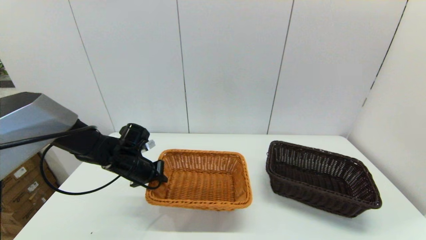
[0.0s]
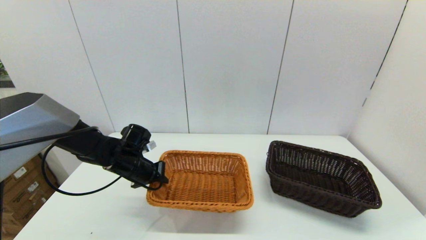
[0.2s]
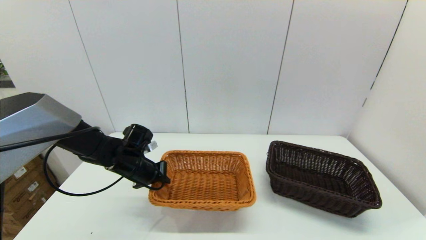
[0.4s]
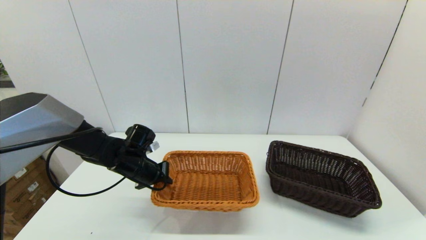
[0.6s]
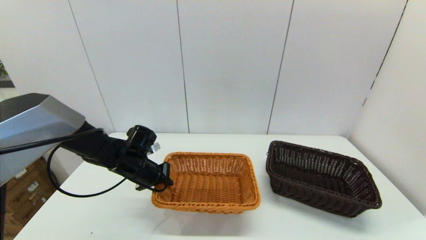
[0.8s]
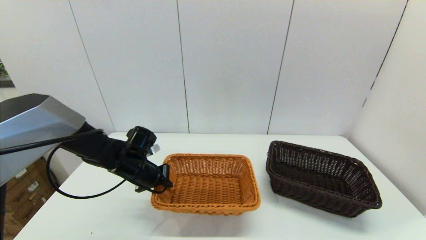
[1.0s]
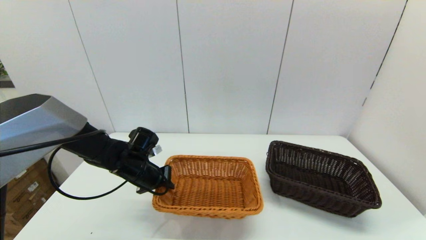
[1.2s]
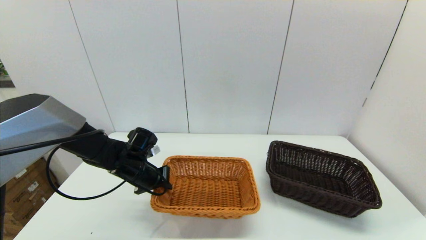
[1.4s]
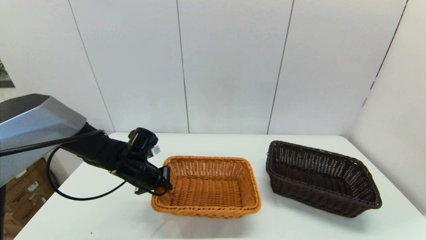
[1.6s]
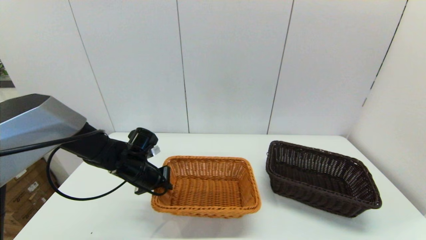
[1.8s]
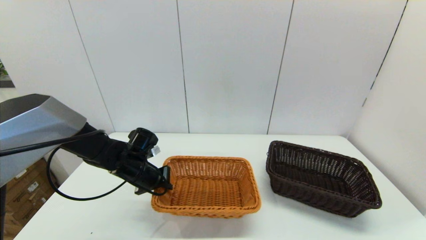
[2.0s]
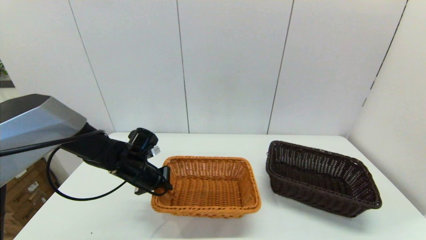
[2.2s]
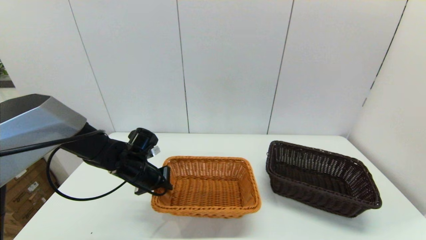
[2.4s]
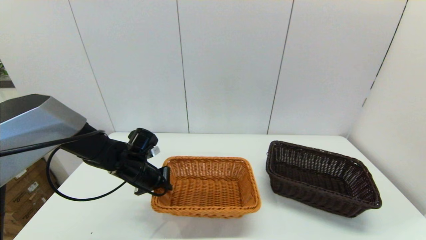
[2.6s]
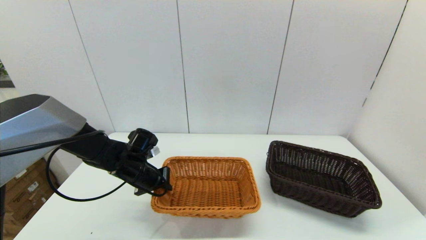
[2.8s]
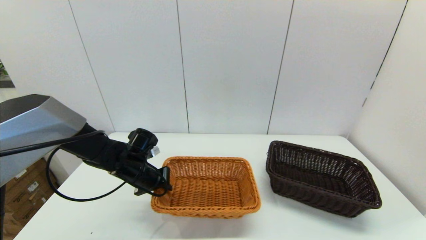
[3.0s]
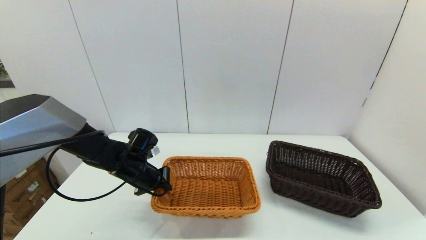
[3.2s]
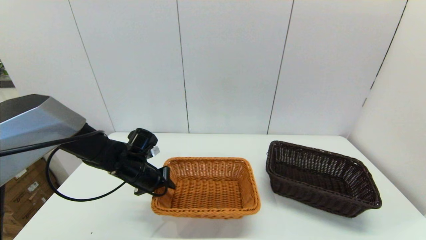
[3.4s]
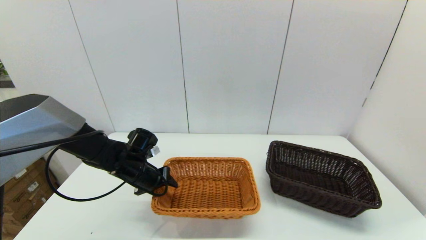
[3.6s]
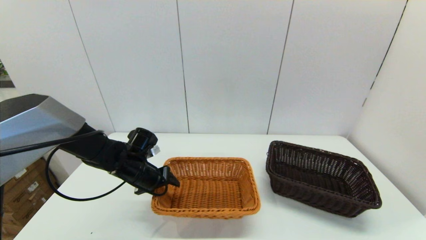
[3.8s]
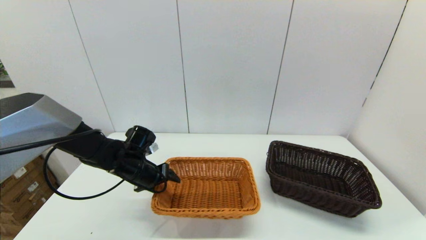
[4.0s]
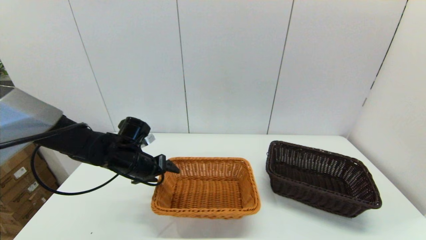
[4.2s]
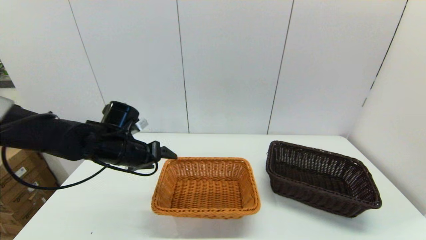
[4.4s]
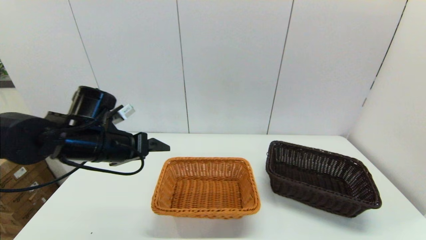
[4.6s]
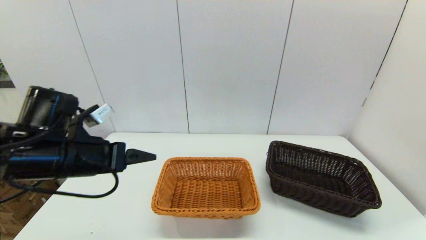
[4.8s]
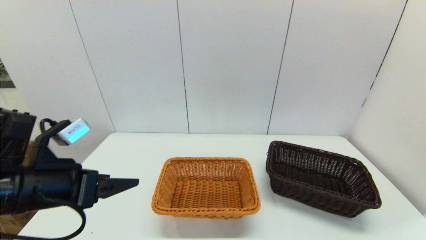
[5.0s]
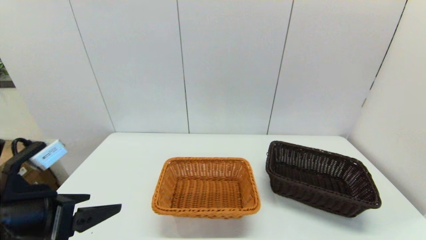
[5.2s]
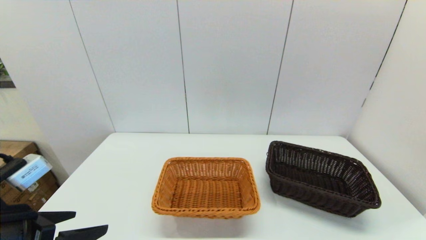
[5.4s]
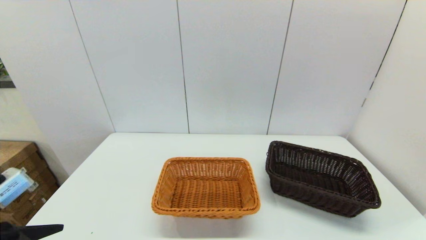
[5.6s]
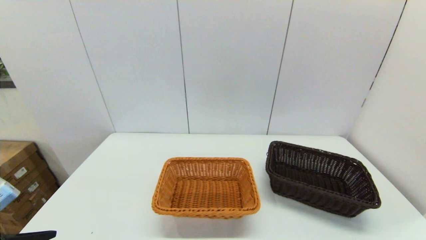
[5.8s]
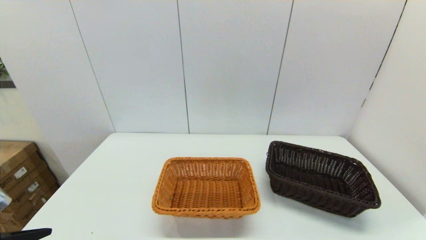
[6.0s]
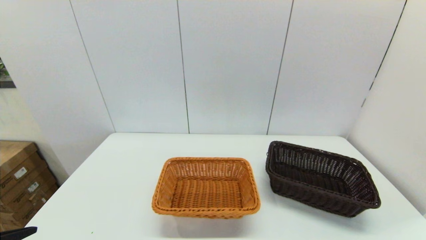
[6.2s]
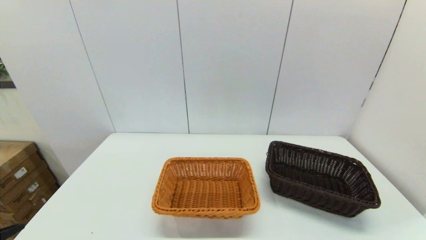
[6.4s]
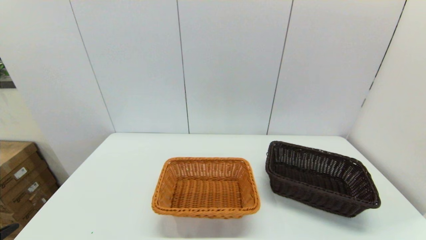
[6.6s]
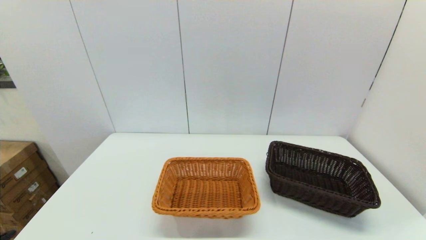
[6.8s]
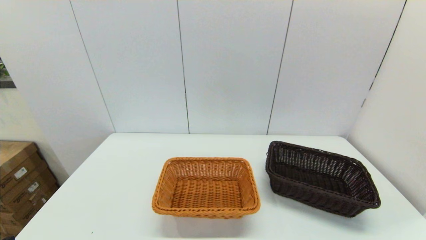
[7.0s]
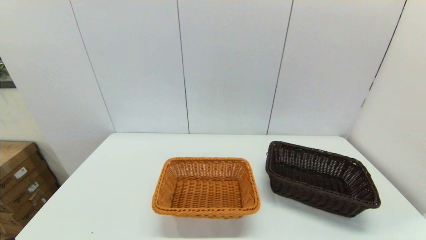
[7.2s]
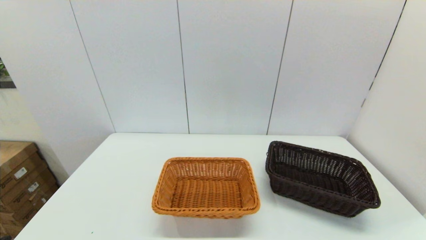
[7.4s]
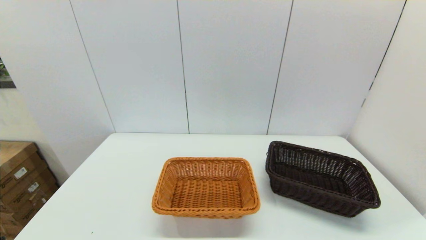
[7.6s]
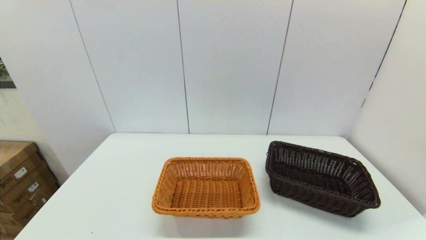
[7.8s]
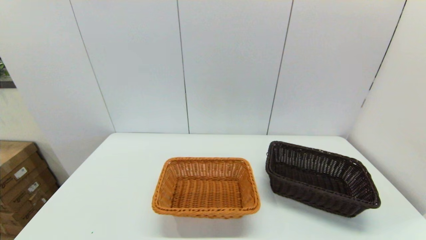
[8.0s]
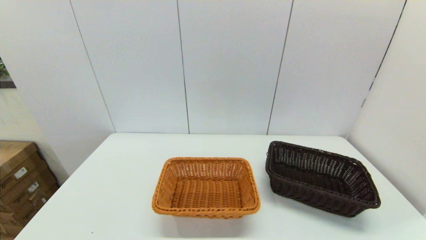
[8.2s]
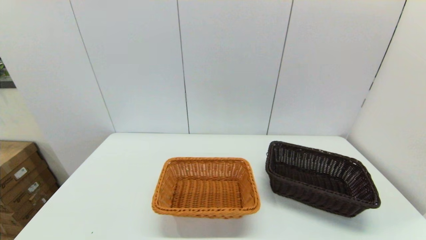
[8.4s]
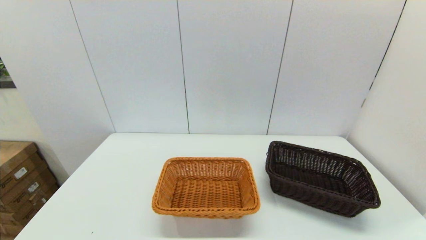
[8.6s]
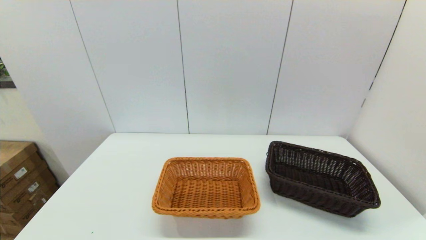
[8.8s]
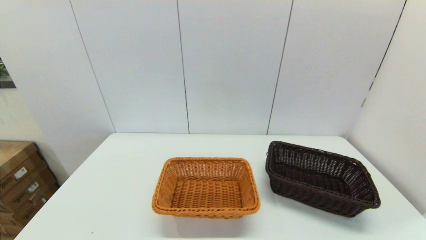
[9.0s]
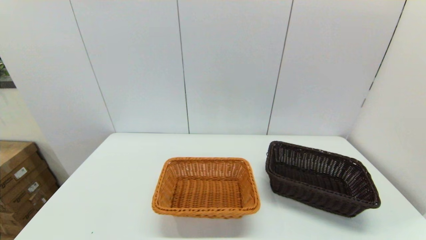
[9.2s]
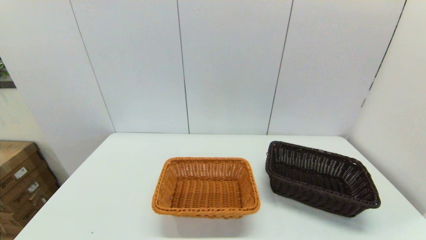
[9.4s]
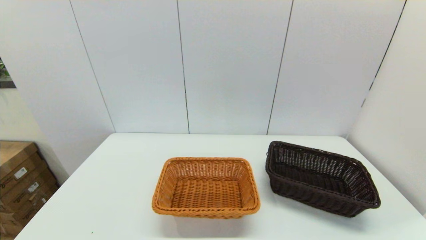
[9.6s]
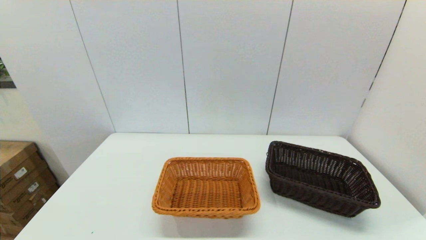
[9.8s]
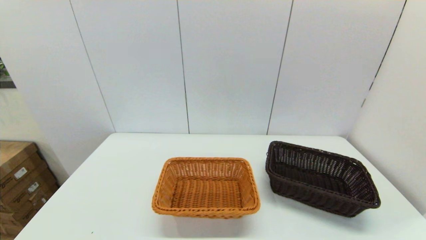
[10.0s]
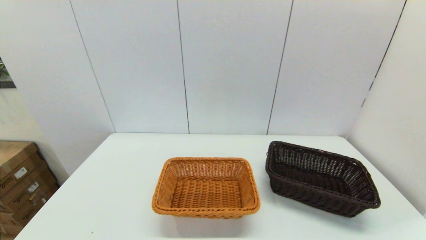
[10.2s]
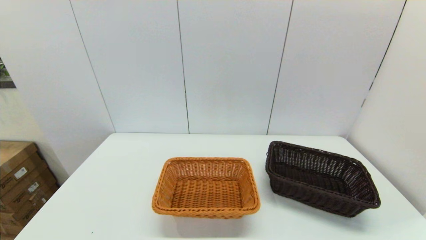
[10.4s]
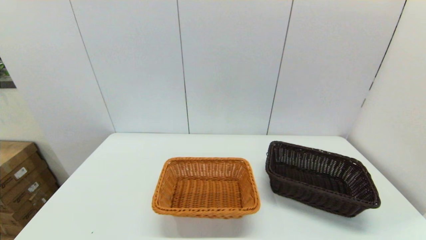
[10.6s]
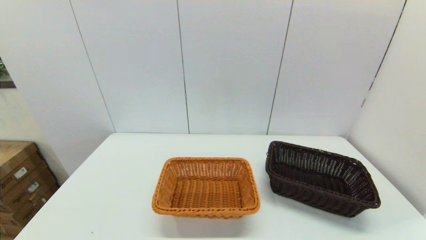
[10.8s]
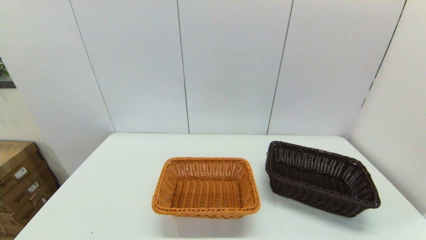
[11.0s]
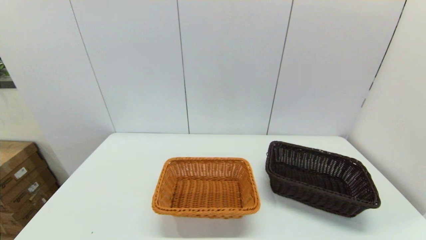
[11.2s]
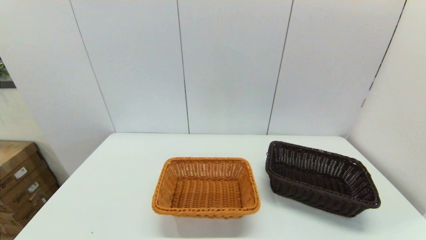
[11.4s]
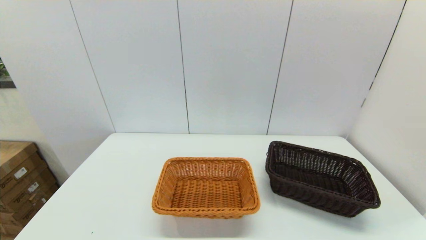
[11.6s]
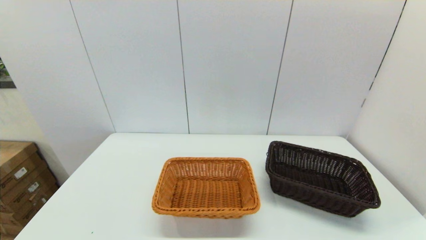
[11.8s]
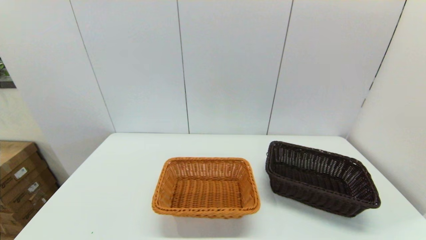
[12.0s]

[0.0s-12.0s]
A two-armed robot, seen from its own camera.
Task of the whole recording: stack a basket on top of another basket.
Step, 0.0s to 4.2s: Place the light basket on the middle of the table with the left gripper.
0.0s to 1.6s: The grippers stay close to where they were, moving slightly.
1.6s to 3.0s: The two grippers keep their place.
3.0s to 4.4s: The left gripper heads upward, covering roughly 10 cm, and opens its fingers.
4.4s to 6.0s: The left gripper is displaced backward by approximately 25 cm.
9.0s to 10.4s: Both grippers stay put.

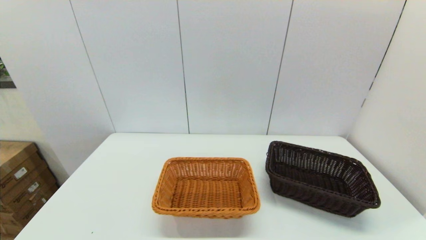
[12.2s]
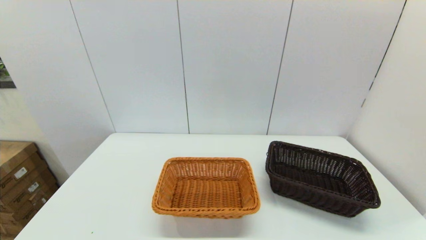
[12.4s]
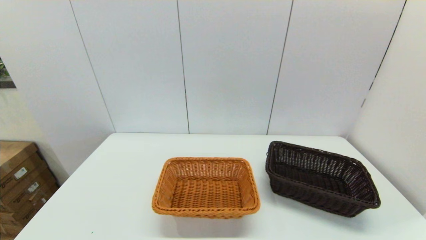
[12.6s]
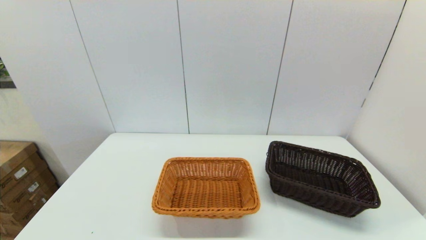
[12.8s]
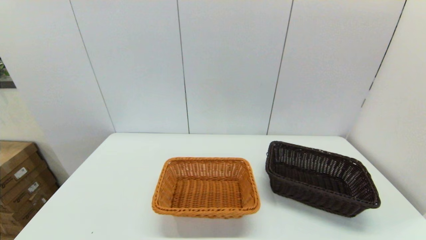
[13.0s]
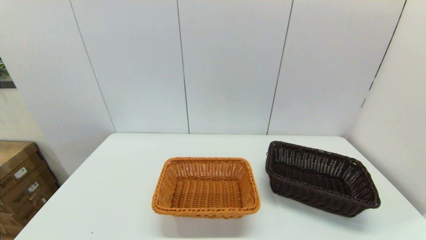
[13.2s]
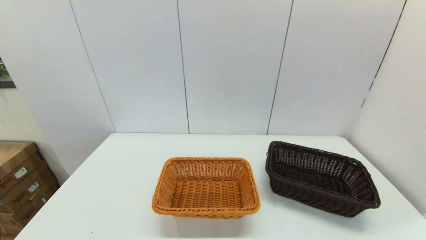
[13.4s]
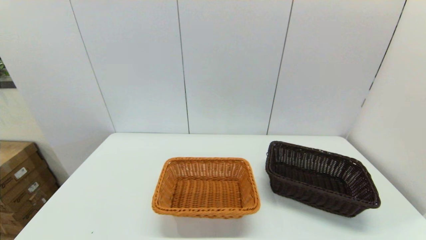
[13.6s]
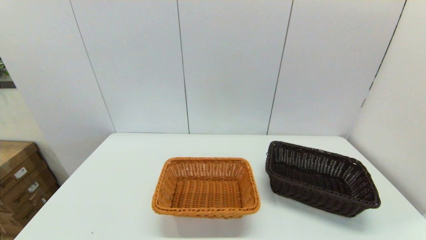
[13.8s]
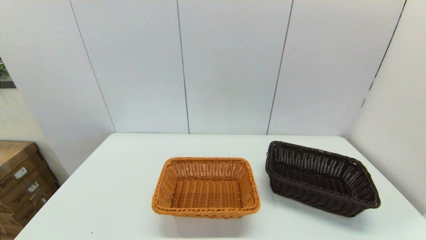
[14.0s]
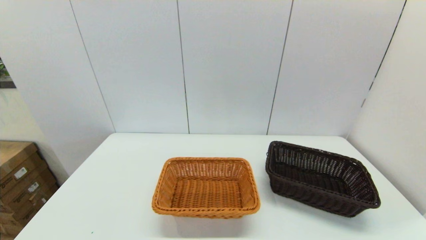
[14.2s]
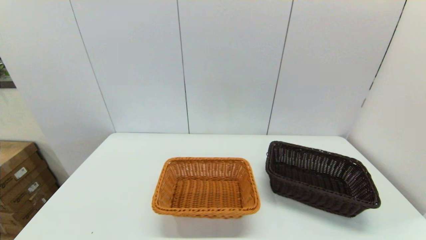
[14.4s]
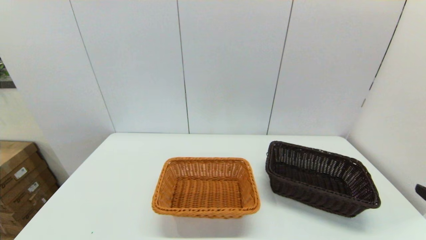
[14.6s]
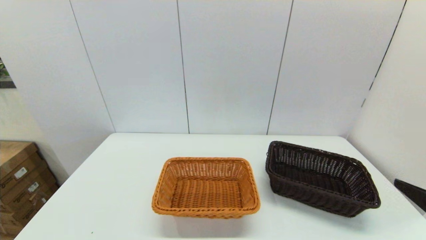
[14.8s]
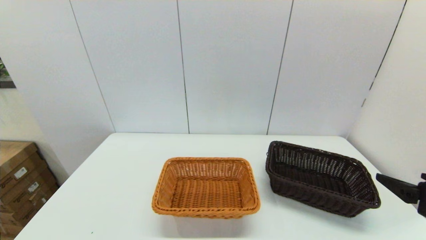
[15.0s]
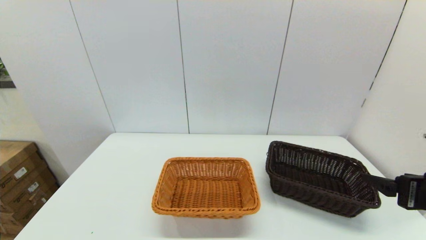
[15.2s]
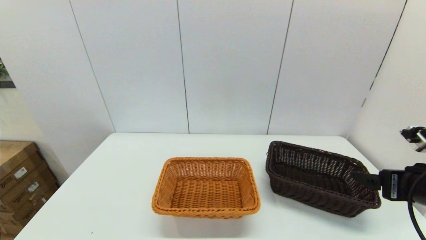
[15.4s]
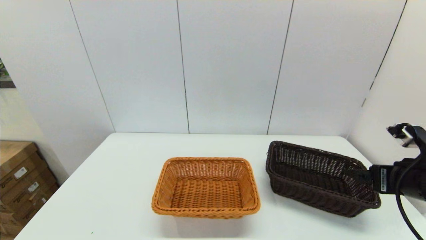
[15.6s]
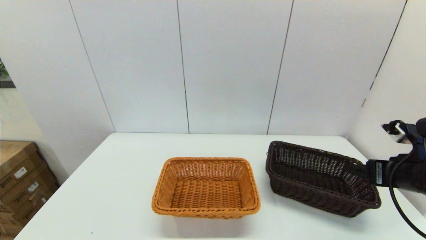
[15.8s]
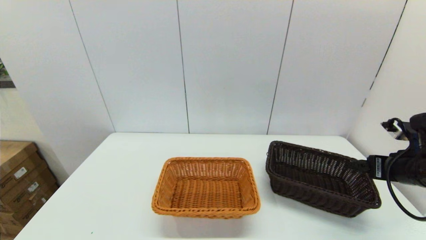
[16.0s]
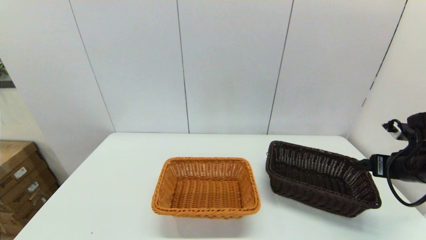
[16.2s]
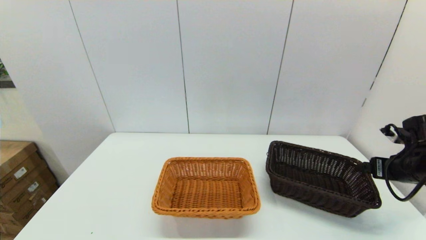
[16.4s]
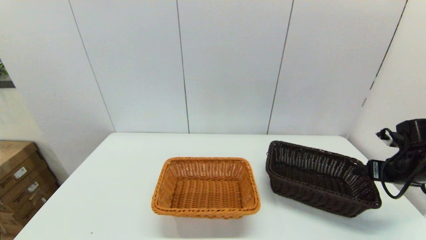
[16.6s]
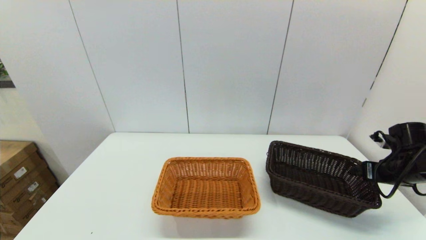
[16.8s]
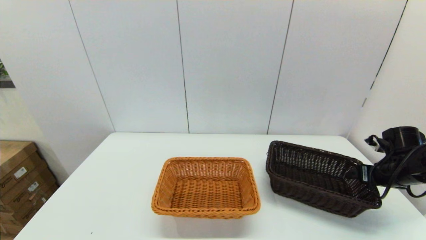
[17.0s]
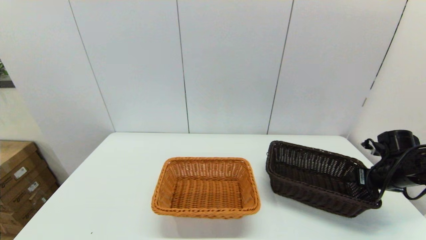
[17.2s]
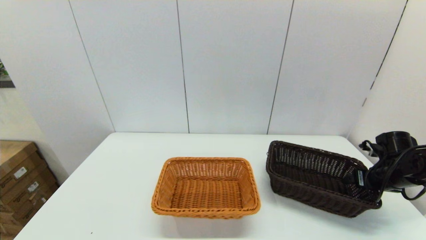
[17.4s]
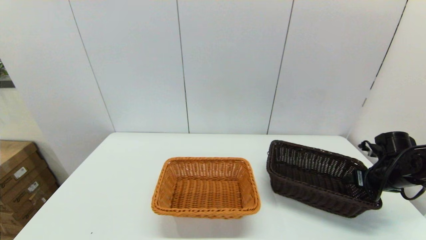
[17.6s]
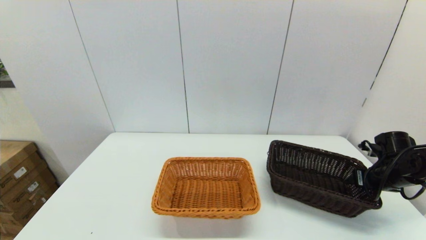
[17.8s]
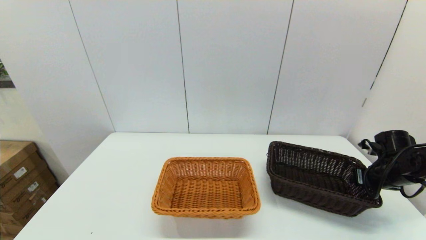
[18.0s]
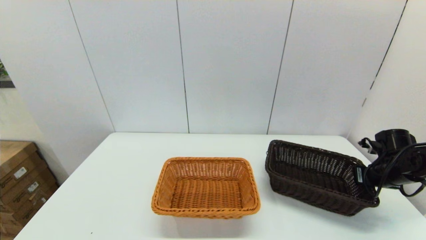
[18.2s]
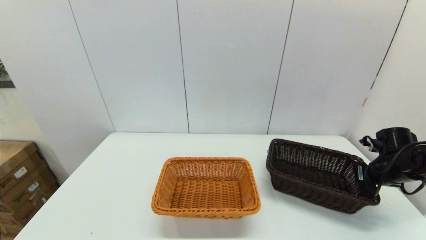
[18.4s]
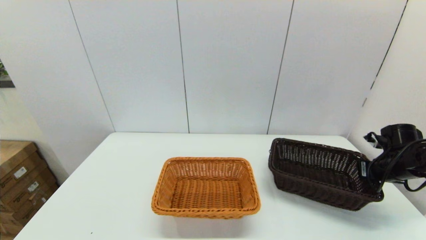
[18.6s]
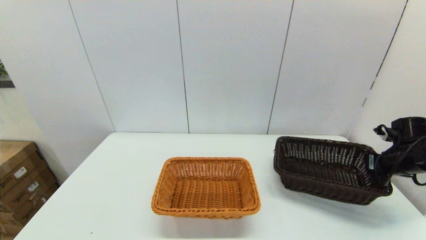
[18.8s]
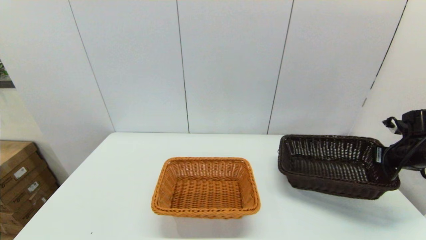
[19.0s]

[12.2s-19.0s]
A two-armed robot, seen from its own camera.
Task of the whole recording: stack a basket on top of another basket.
Step, 12.2s to 17.6s: Grasp the dark basket with the right gripper.
13.6s to 15.0s: The right gripper travels forward by roughly 15 cm.
15.0s to 16.2s: The right gripper goes roughly 15 cm forward and to the right.
16.2s to 17.6s: The right gripper travels downward and forward by roughly 10 cm.
17.6s to 19.0s: The right gripper moves upward, about 5 cm, and closes up.
